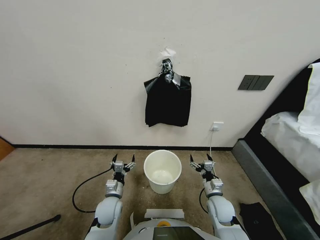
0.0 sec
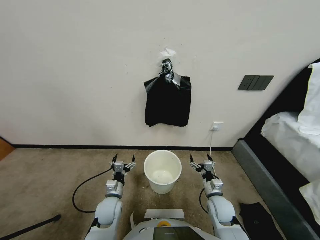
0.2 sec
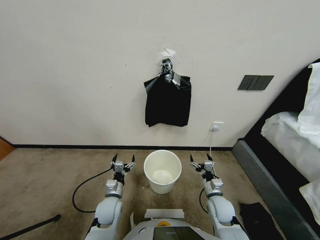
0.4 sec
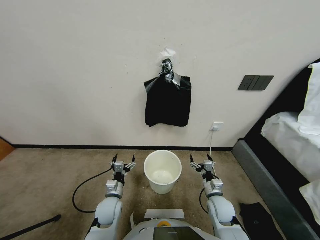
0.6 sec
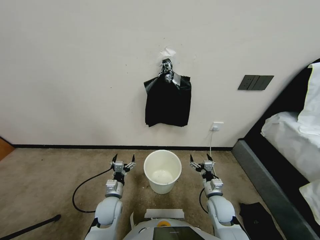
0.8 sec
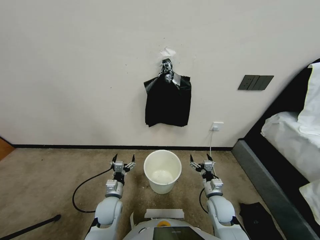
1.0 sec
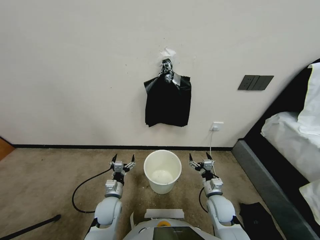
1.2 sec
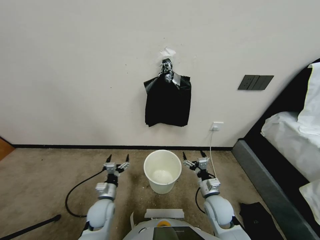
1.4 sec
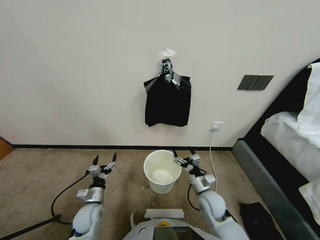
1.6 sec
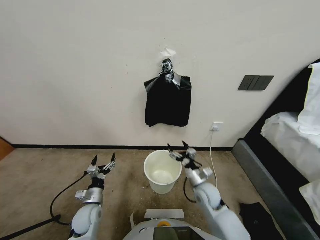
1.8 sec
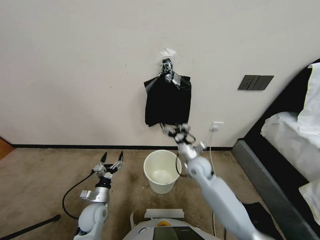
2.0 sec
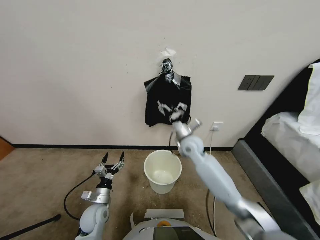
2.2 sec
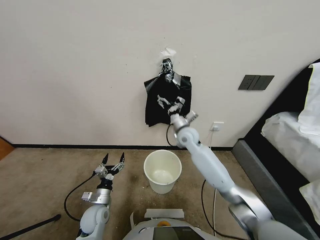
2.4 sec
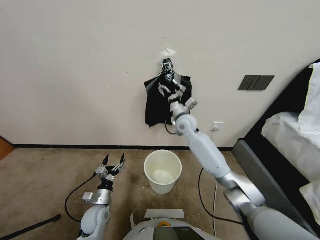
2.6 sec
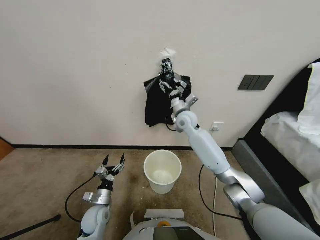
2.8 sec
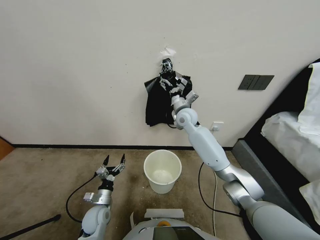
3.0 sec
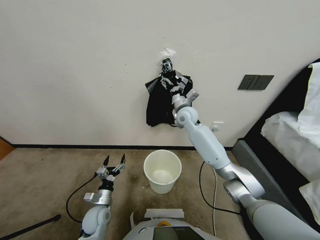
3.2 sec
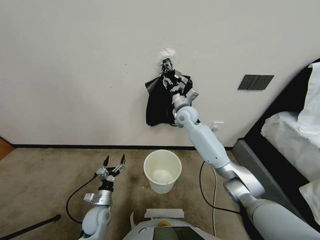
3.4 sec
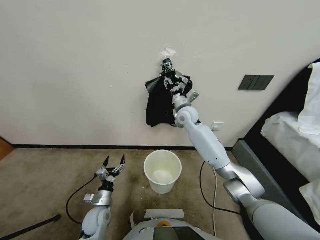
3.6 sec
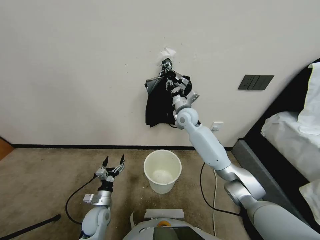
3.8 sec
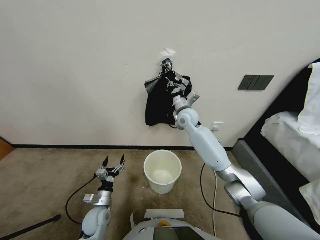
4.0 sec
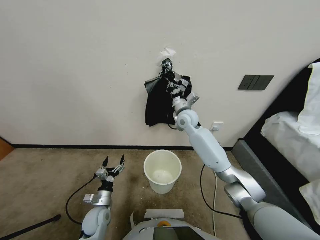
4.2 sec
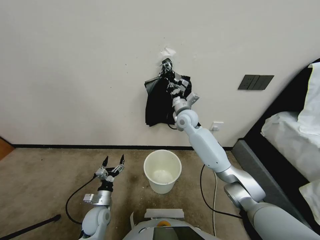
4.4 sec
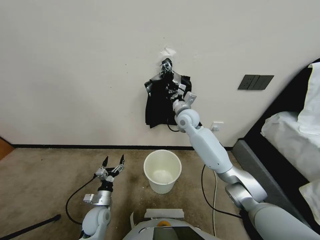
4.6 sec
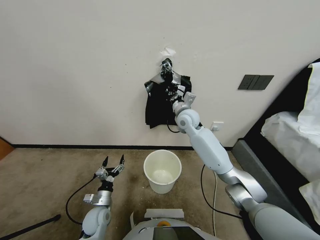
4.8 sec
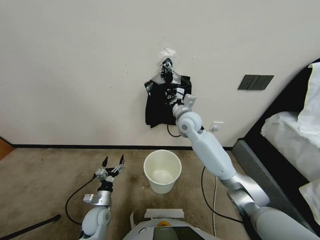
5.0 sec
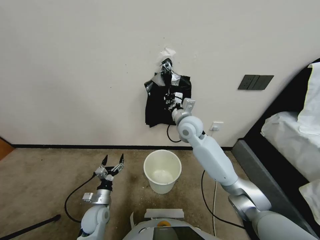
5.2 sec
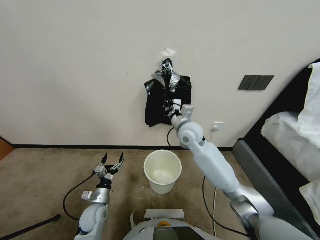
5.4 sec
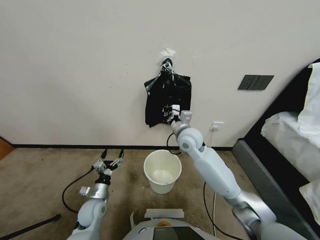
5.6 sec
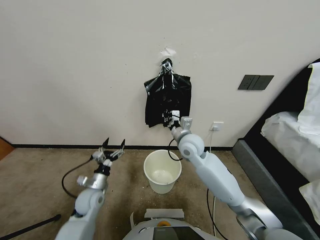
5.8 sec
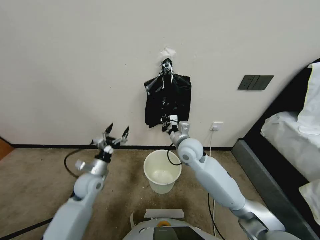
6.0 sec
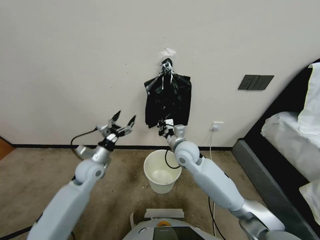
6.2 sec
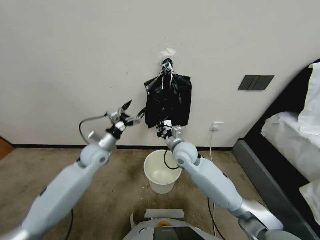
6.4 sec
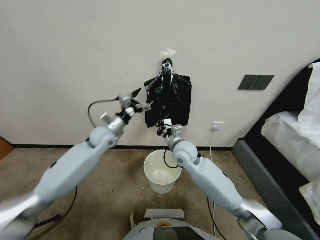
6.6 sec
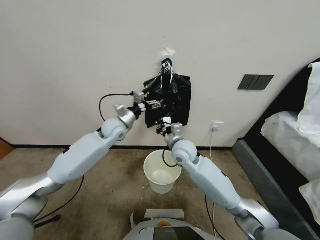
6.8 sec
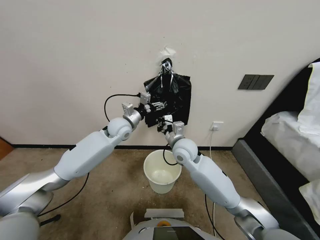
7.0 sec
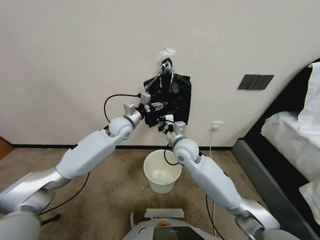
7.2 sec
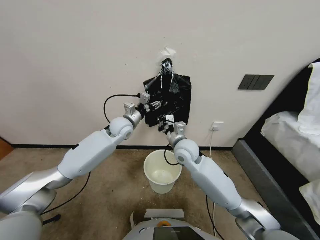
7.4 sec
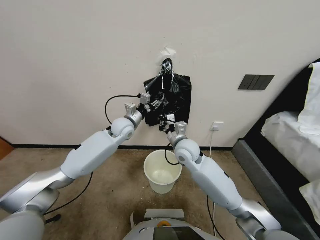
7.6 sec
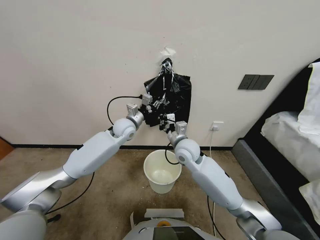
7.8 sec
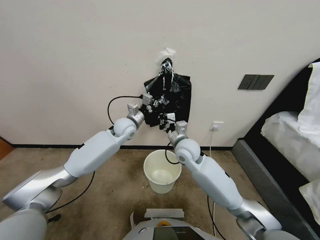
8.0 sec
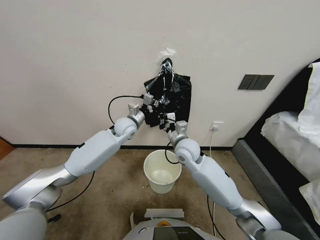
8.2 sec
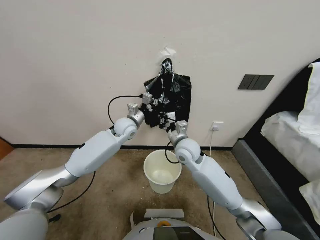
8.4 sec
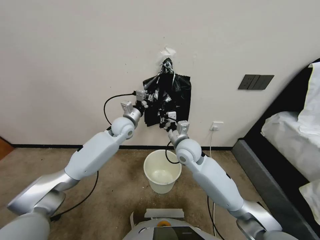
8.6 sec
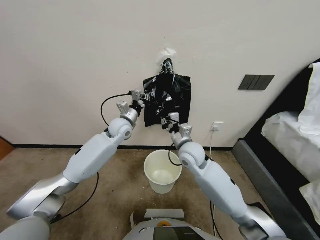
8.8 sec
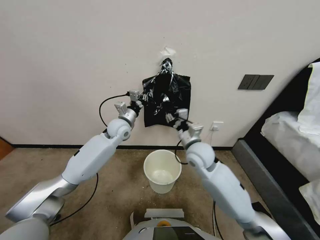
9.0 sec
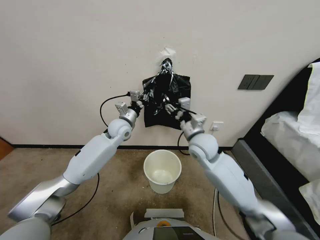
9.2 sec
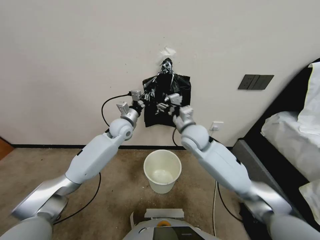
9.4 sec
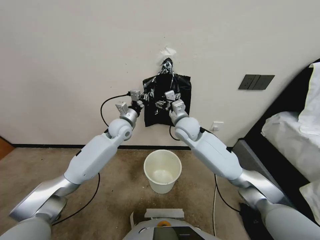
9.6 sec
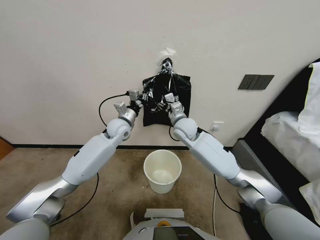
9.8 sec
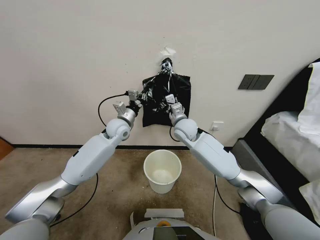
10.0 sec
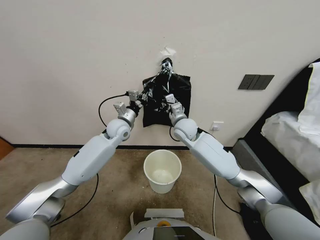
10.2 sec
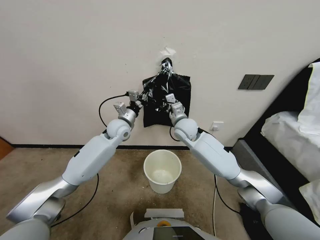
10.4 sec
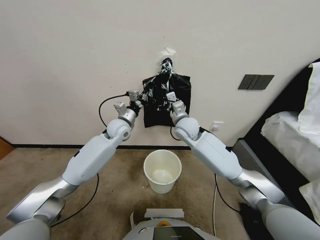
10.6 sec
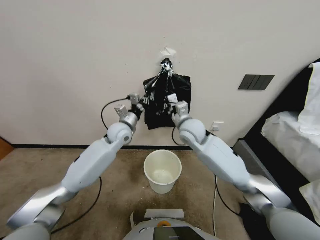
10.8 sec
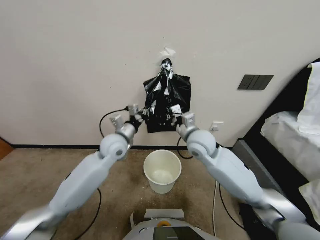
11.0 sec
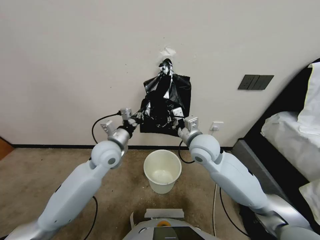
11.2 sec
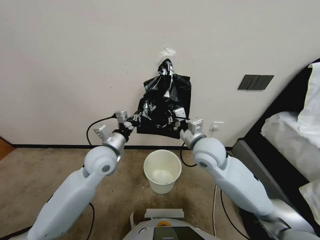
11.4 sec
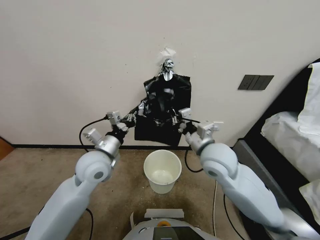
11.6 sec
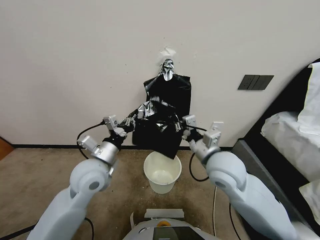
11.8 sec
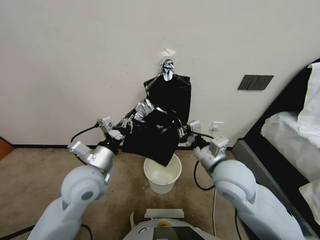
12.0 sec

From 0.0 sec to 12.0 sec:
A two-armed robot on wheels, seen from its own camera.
Task of the whole recording: Place a trash bag onto the trash bin.
From 1.6 sec to 3.0 sec: The right gripper goes approximately 35 cm forward and upward.
From 3.0 sec to 4.4 sec: The right gripper closes up.
From 4.4 sec to 6.0 sec: The right gripper shifts roughly 15 cm backward and downward; the left gripper travels upward and forward by roughly 20 cm.
From 6.0 sec to 7.6 sec: The left gripper is displaced forward, to the right and upward by some 25 cm, and closes its fingers.
From 7.6 sec to 9.0 sec: The right gripper ends up some 5 cm from where it was, and opens its fingers.
From 9.0 sec to 10.4 sec: The right gripper moves forward, about 10 cm, and closes.
From 10.4 sec to 12.0 sec: Both grippers move backward, some 25 cm.

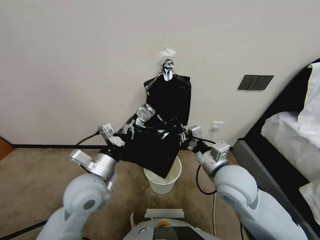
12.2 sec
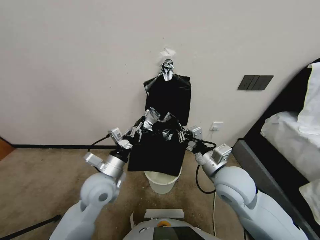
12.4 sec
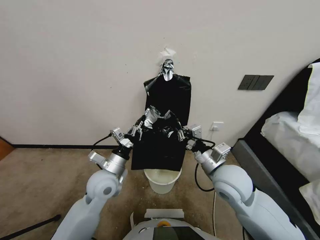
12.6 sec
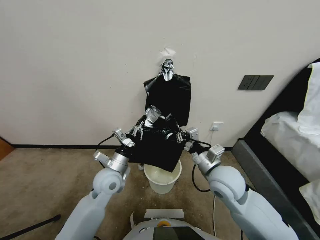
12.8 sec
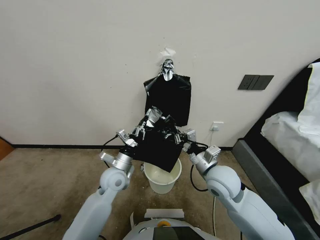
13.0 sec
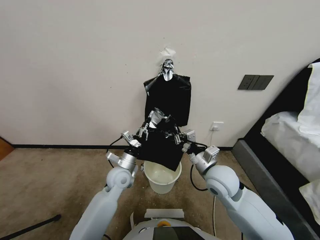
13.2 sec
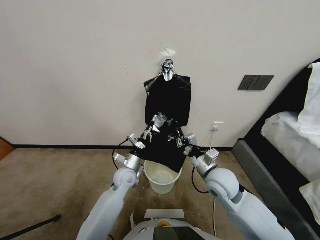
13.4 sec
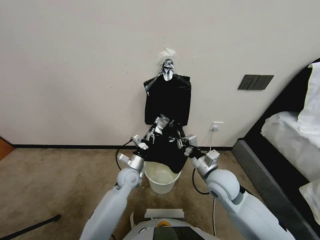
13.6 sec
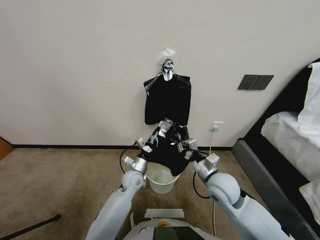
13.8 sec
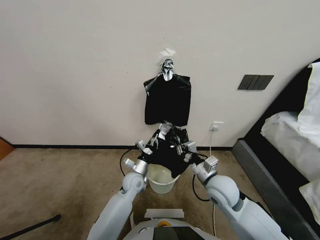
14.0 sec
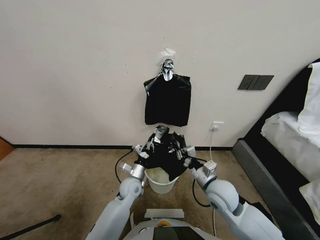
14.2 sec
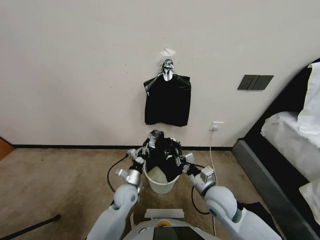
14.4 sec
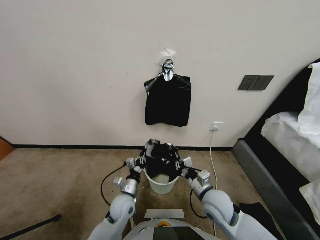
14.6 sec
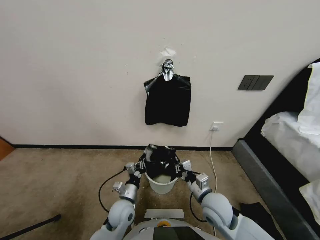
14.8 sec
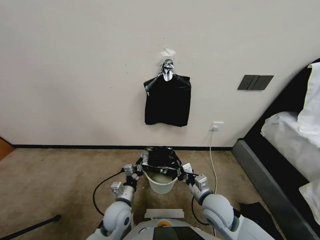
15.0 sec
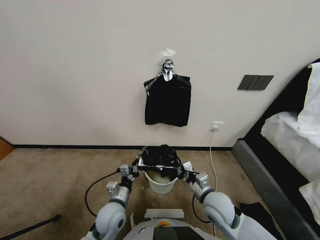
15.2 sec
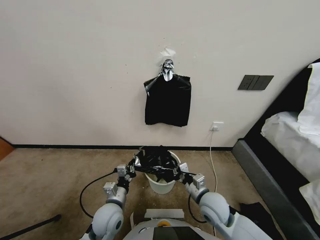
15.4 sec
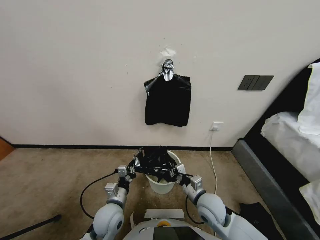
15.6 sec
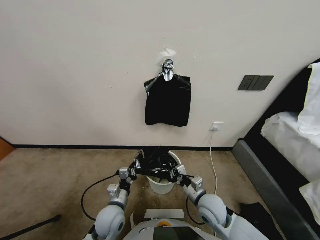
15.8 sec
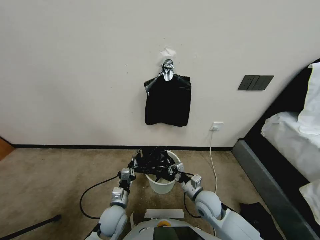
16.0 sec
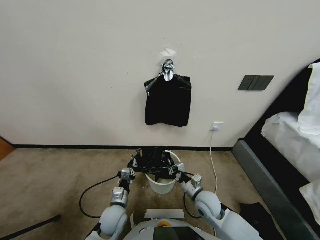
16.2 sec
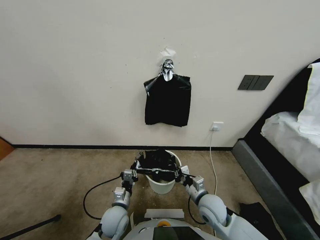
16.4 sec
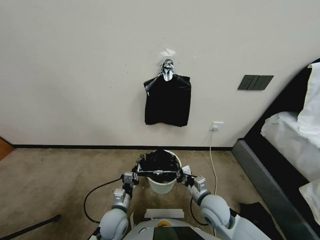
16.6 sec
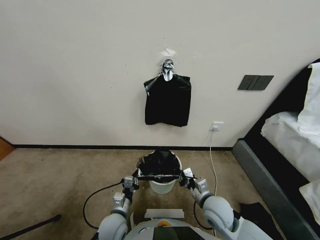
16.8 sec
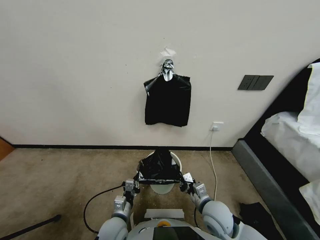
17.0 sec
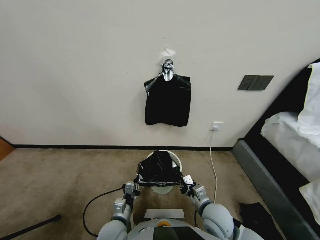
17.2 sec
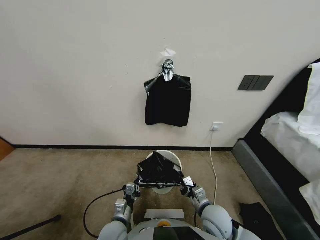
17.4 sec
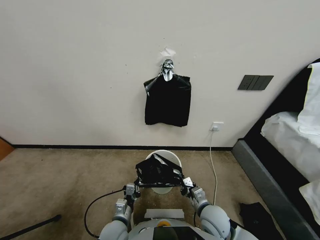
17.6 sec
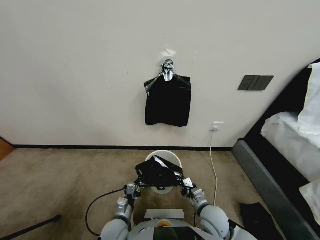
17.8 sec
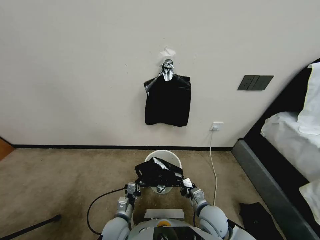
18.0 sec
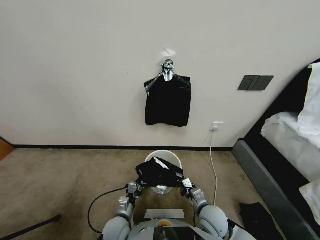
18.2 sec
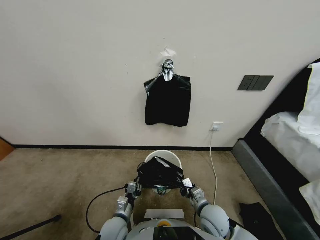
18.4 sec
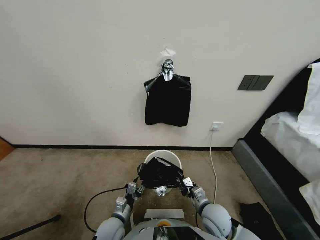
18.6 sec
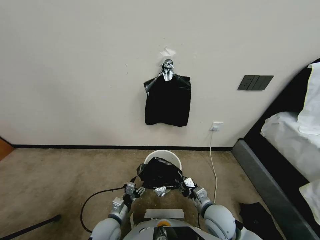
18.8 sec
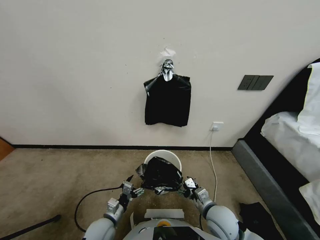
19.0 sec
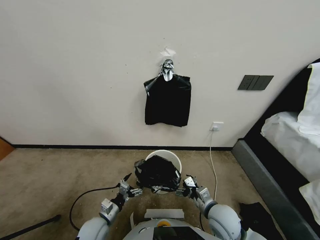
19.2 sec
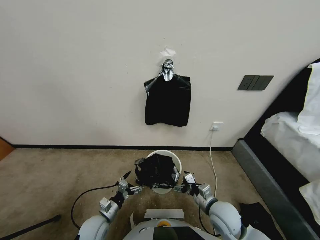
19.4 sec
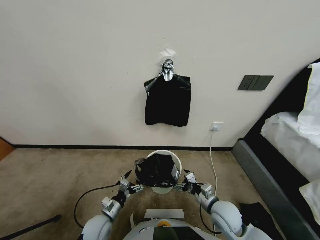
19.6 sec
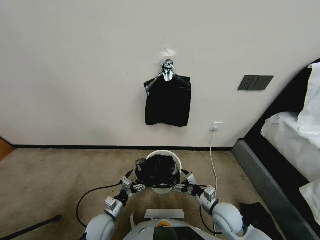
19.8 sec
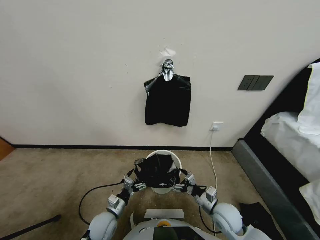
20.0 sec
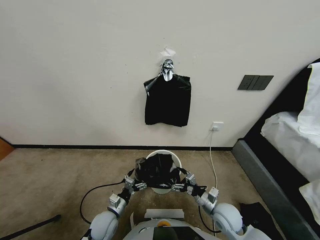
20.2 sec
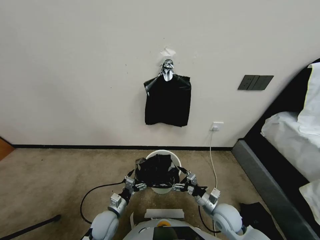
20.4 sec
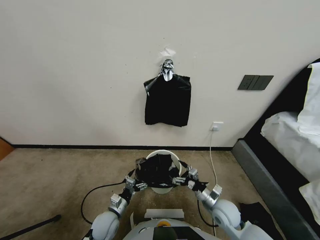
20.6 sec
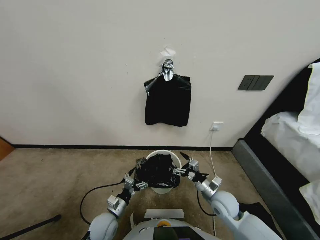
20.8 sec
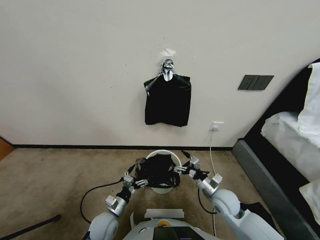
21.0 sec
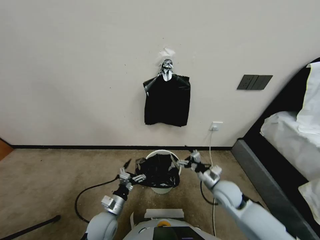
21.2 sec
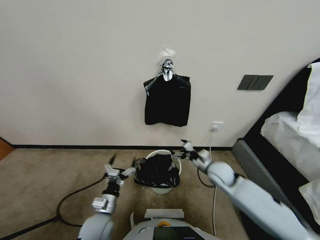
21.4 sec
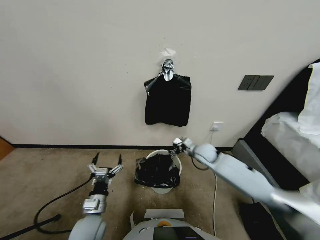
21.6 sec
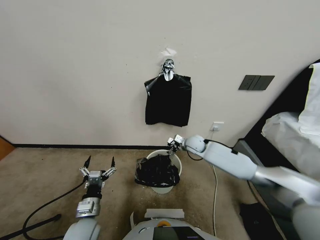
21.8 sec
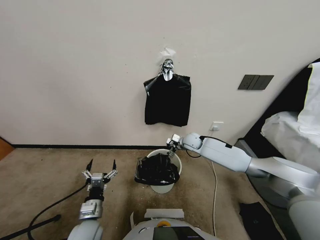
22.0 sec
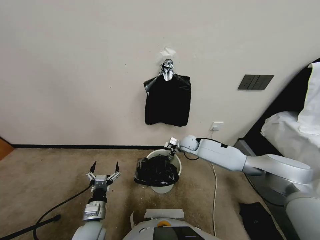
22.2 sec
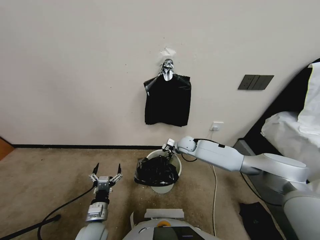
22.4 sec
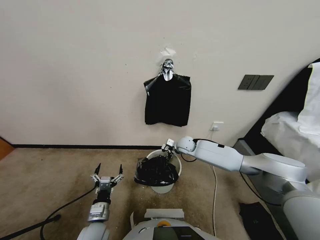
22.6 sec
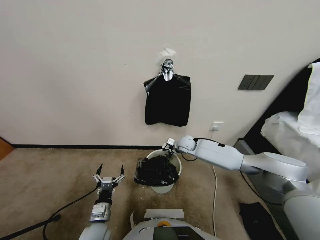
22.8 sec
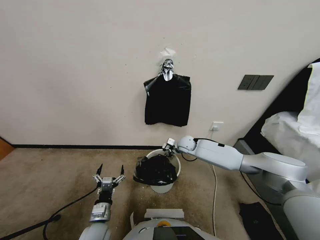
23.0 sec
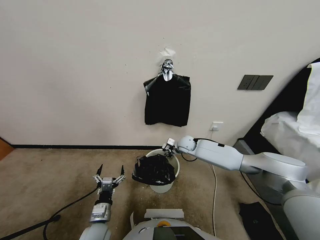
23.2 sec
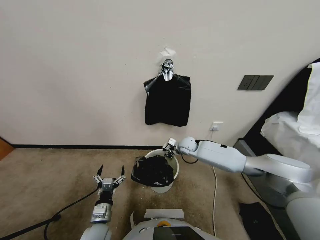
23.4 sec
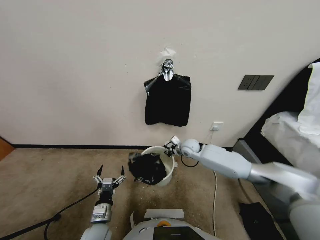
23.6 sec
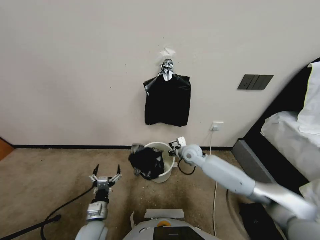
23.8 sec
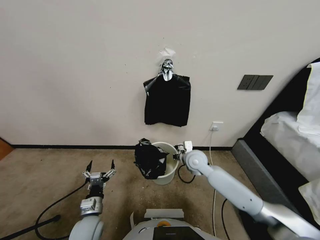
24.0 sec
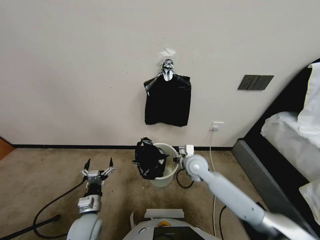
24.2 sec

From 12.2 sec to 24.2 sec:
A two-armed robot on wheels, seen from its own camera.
Task of the whole recording: Place a trash bag onto the trash bin.
From 12.2 sec to 13.8 sec: The left gripper travels downward, forward and to the right by about 20 cm, while the right gripper travels downward by about 10 cm.
From 13.8 sec to 15.2 sec: The left gripper moves backward and to the left, approximately 15 cm. The right gripper travels downward by about 5 cm.
From 15.2 sec to 16.6 sec: The left gripper goes about 5 cm downward.
From 16.6 sec to 18.2 sec: The right gripper shifts by about 5 cm.
From 18.2 sec to 19.8 sec: The right gripper is displaced to the right by about 5 cm, and opens its fingers. Meanwhile the left gripper heads to the left, covering some 5 cm, and opens.
From 19.8 sec to 21.2 sec: The right gripper heads forward and upward, covering about 15 cm. The left gripper heads upward, covering some 5 cm.
From 21.2 sec to 22.6 sec: The right gripper travels forward and to the left by some 20 cm, and closes.
From 22.6 sec to 24.2 sec: The right gripper travels backward by about 20 cm, and closes, while the left gripper shifts by roughly 5 cm.
